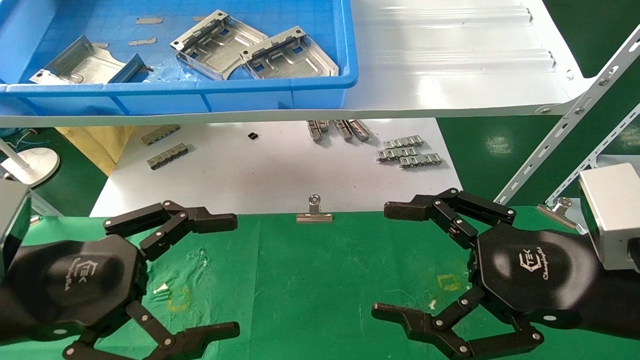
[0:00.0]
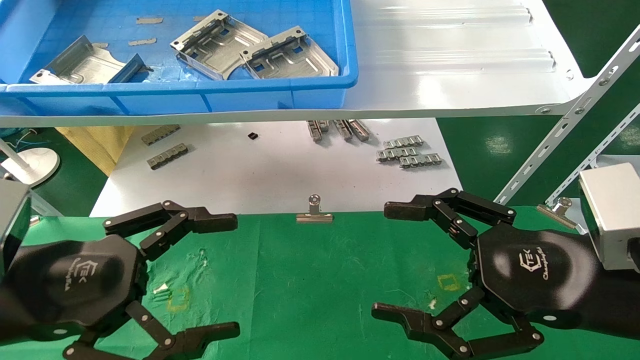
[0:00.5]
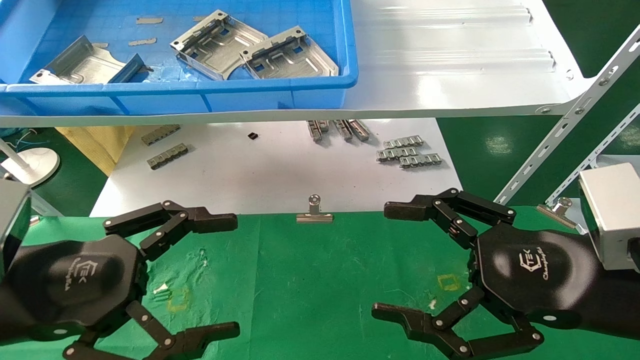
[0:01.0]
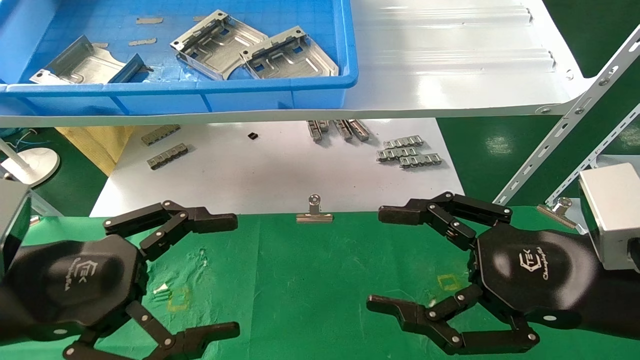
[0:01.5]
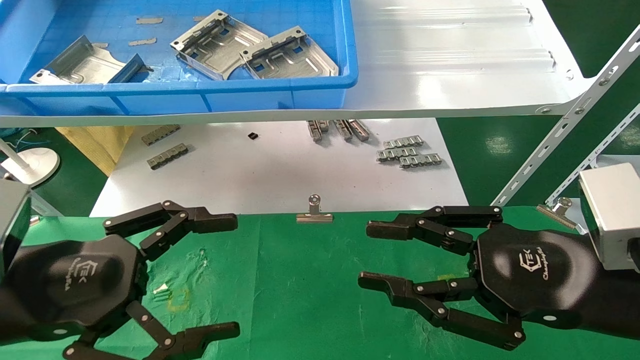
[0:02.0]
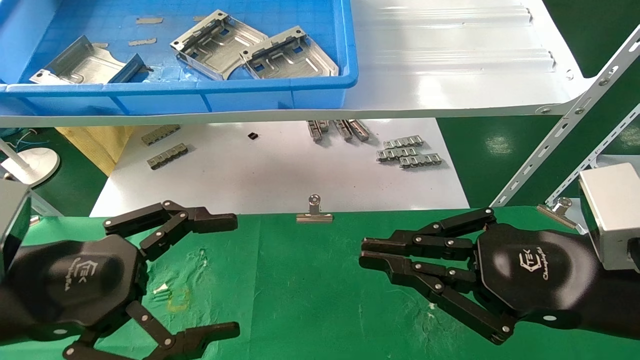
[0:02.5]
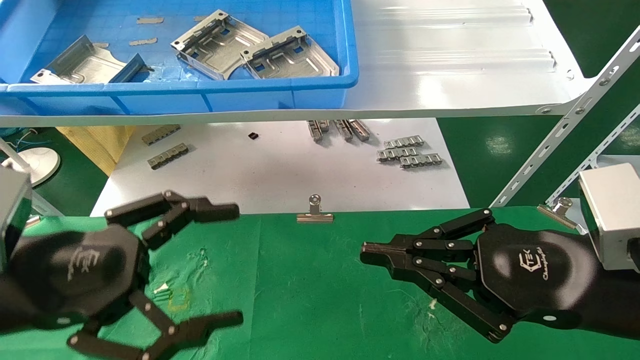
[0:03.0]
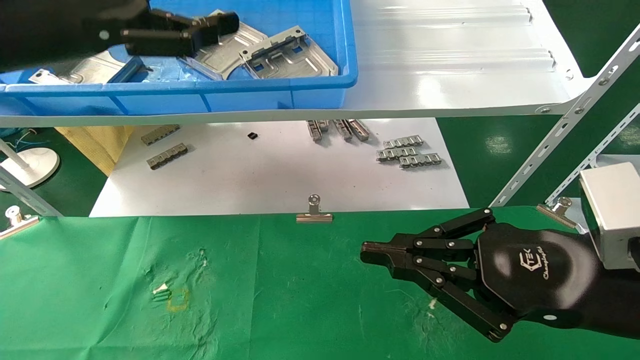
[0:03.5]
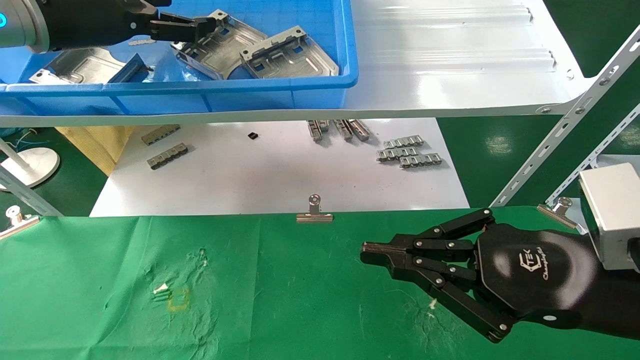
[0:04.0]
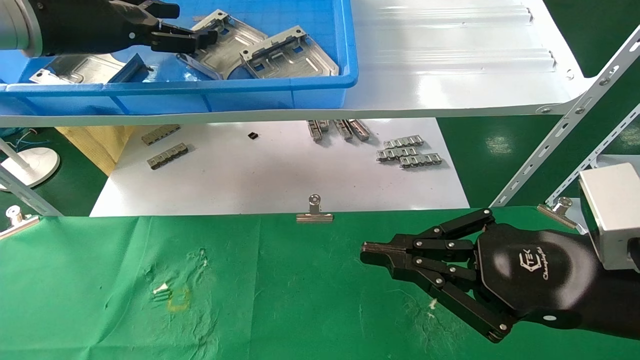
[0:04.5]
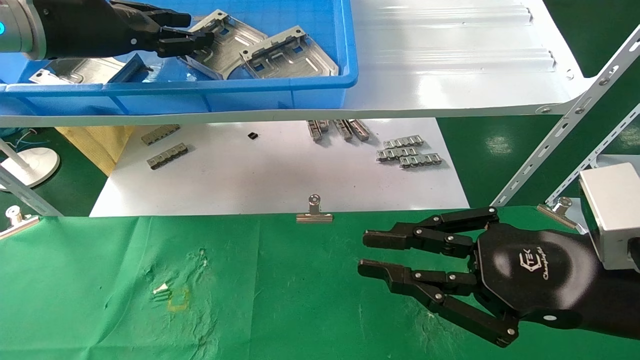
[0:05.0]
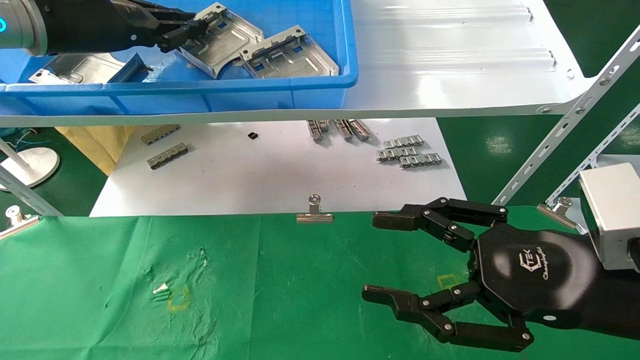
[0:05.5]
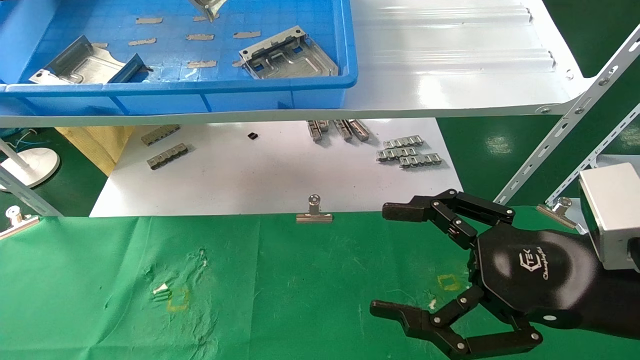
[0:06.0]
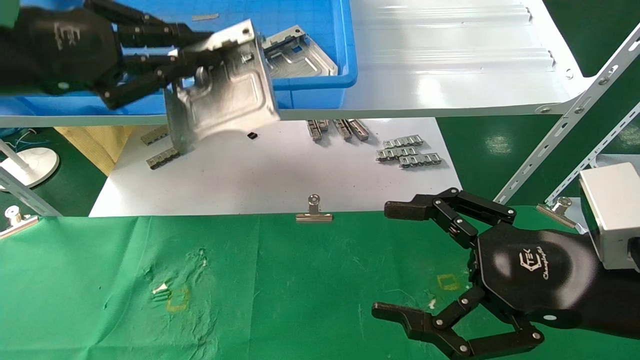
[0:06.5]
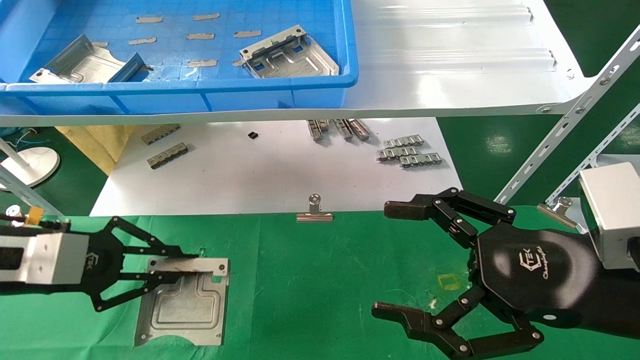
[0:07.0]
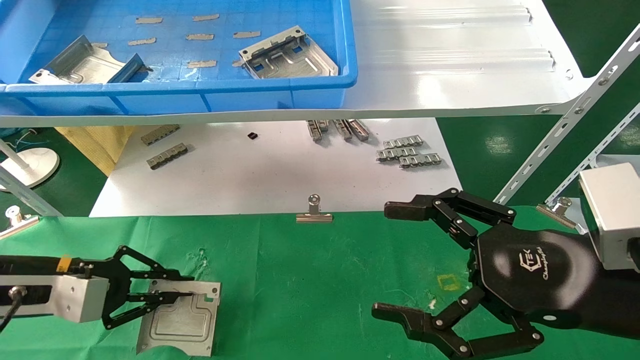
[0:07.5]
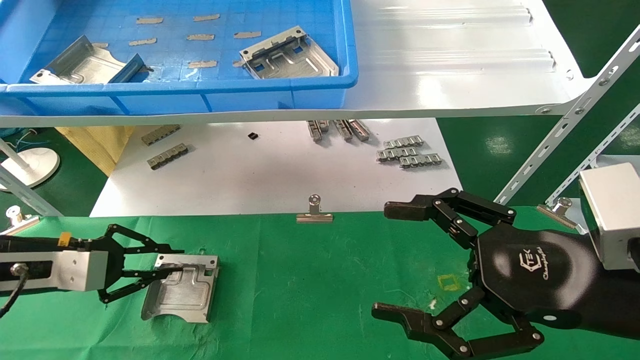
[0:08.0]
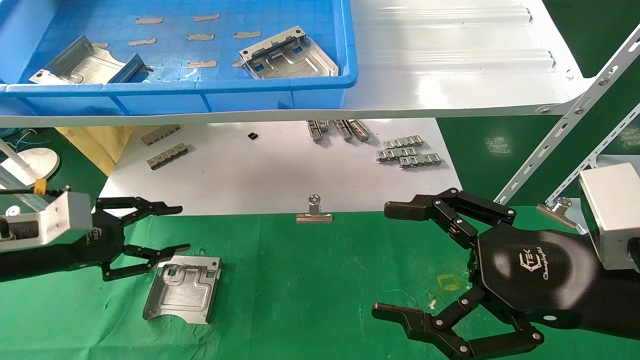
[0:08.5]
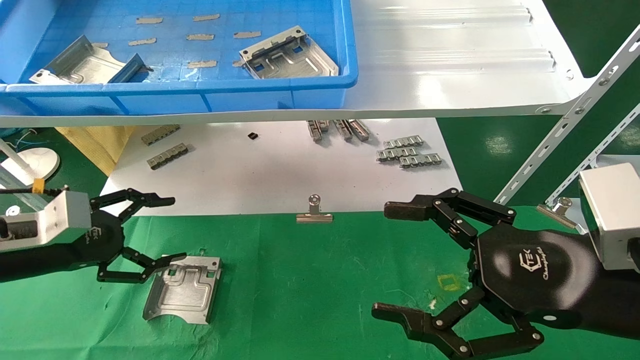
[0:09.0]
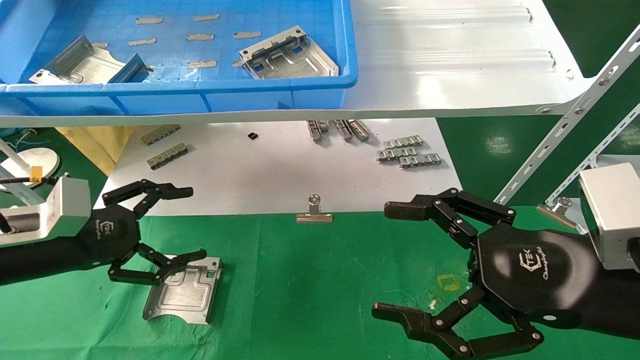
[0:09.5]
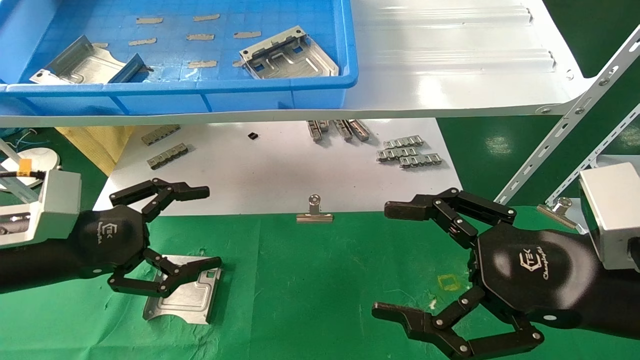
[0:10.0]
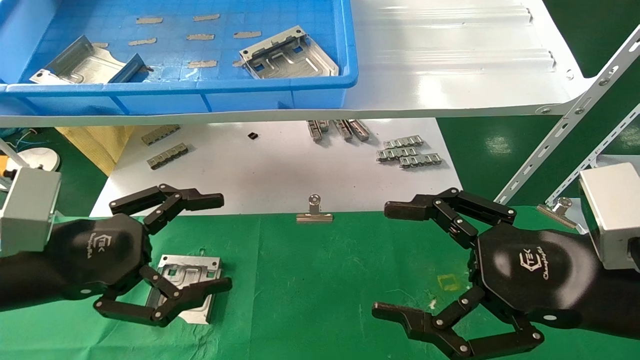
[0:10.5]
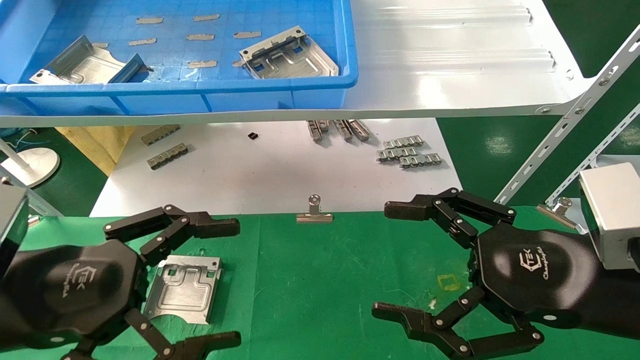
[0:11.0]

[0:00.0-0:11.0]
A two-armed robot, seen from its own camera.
Task of the whole recording: use the mechanical arm to pick up the parts and place them on the table.
Step, 0:03.5 to 0:05.5: Pick up the hard drive bracket from the feeding area.
Step, 0:06.0 to 0:08.0: Place the hard drive bracket into the box.
0:00.0 to 0:02.0: The right gripper closes.
0:02.0 to 0:03.5: The left gripper heads upward and forward, covering approximately 20 cm; the right gripper closes up.
0:03.5 to 0:05.5: The right gripper opens its fingers. Meanwhile the left gripper is displaced forward by some 5 cm, and closes its fingers.
0:05.5 to 0:07.5: The right gripper opens. Meanwhile the left gripper shifts approximately 30 cm downward.
0:07.5 to 0:09.0: The left gripper opens up.
0:09.0 to 0:11.0: The left gripper heads backward and to the right, covering roughly 15 cm.
